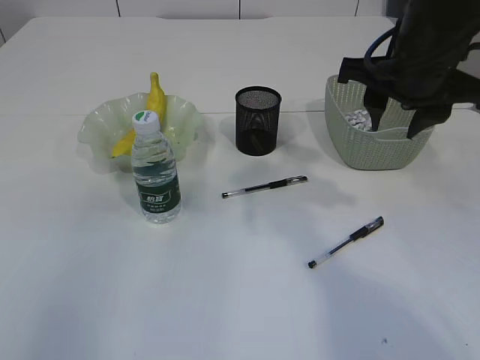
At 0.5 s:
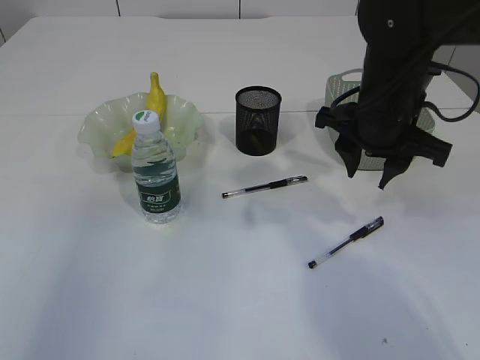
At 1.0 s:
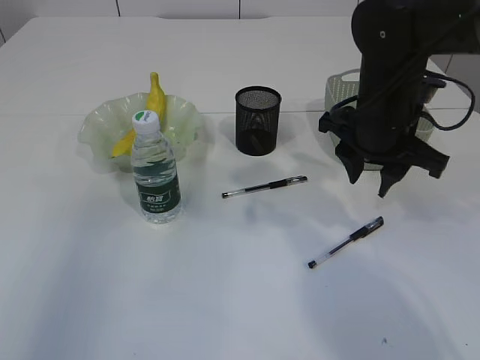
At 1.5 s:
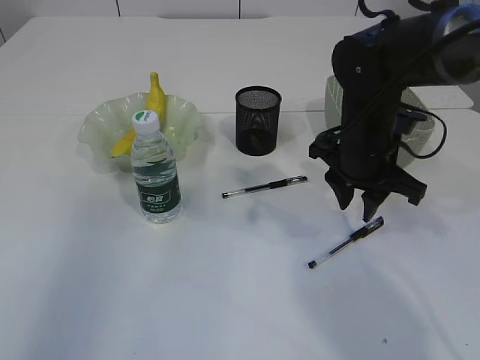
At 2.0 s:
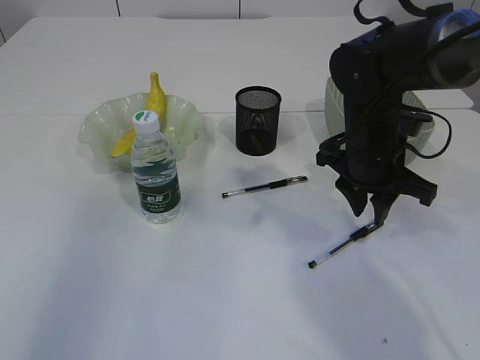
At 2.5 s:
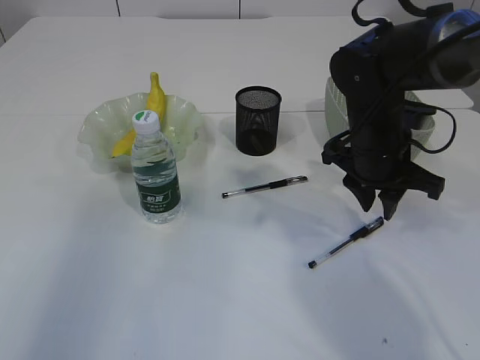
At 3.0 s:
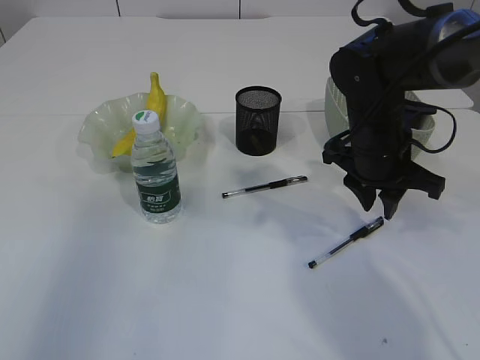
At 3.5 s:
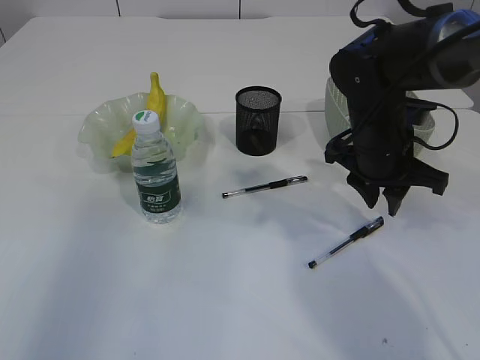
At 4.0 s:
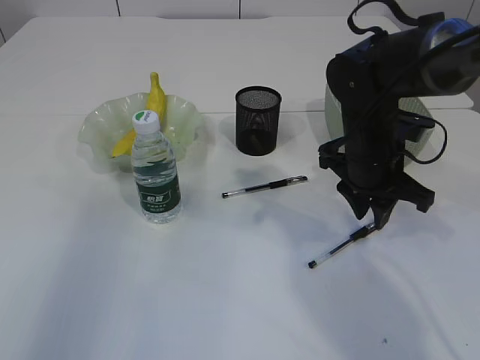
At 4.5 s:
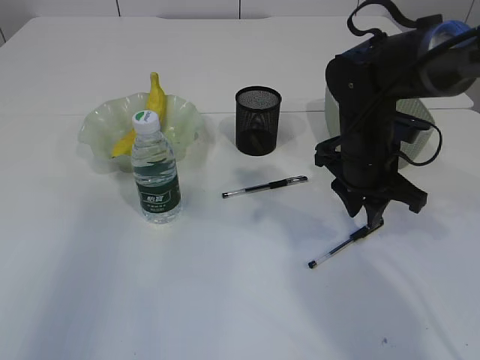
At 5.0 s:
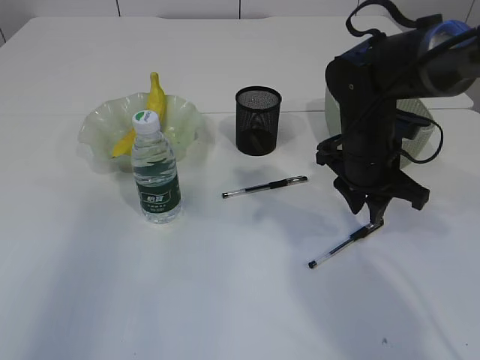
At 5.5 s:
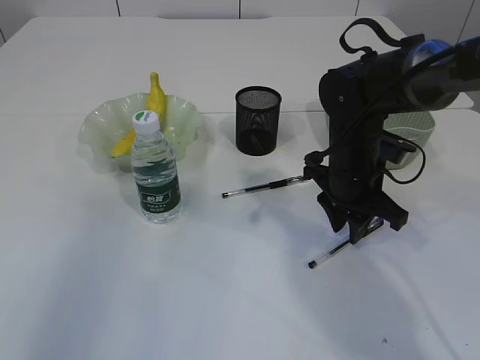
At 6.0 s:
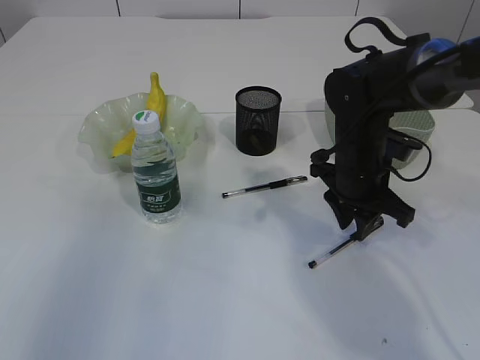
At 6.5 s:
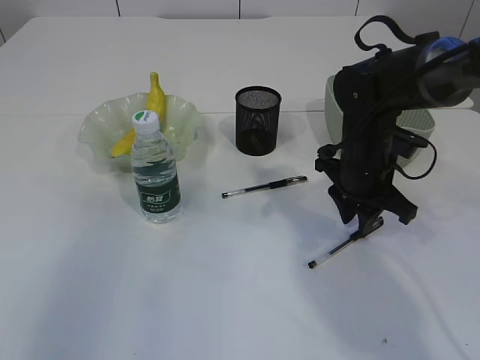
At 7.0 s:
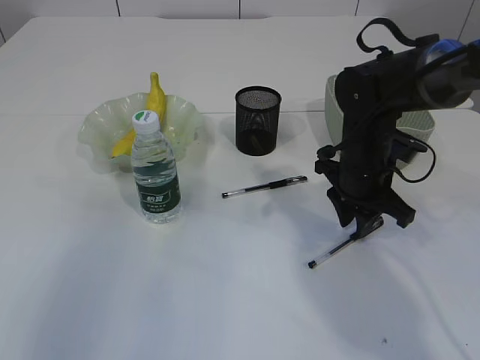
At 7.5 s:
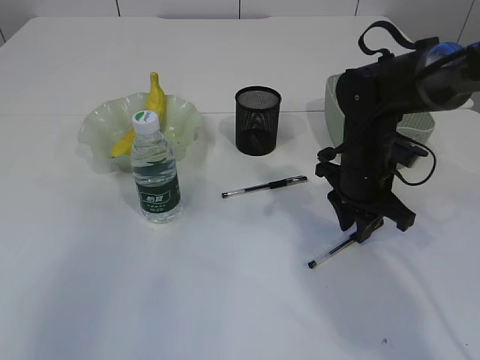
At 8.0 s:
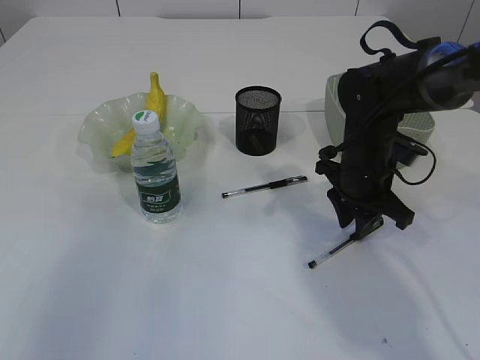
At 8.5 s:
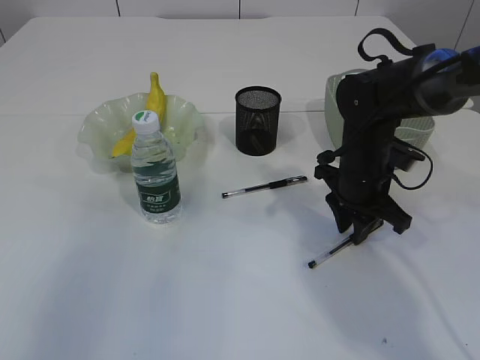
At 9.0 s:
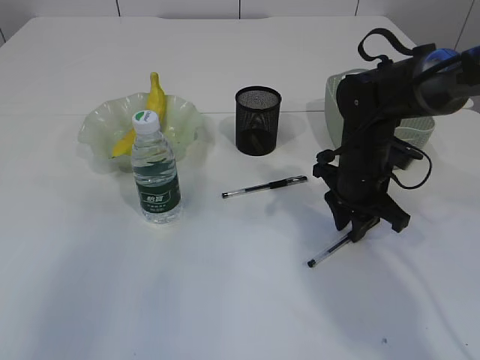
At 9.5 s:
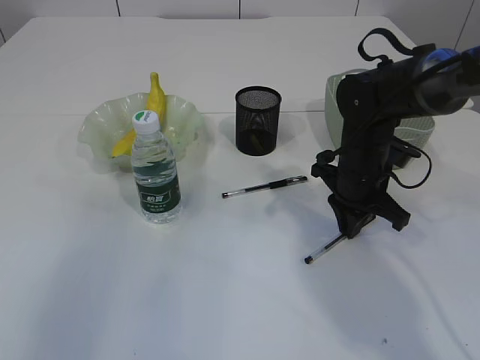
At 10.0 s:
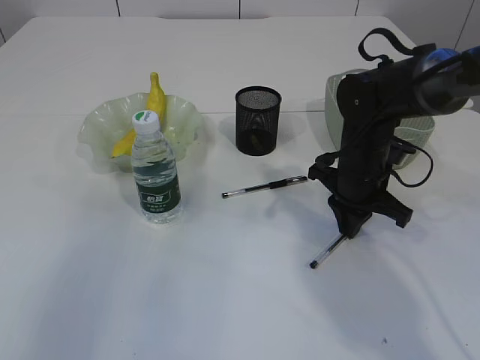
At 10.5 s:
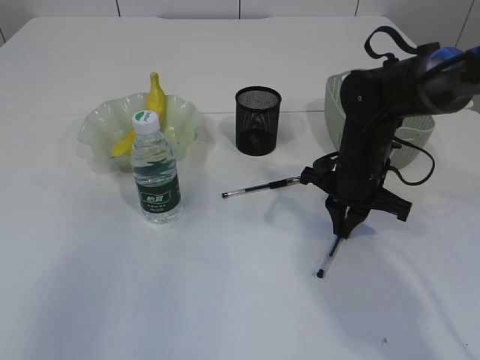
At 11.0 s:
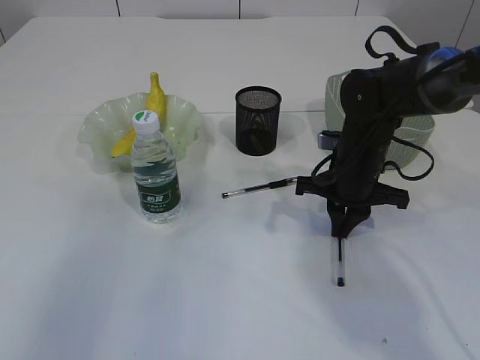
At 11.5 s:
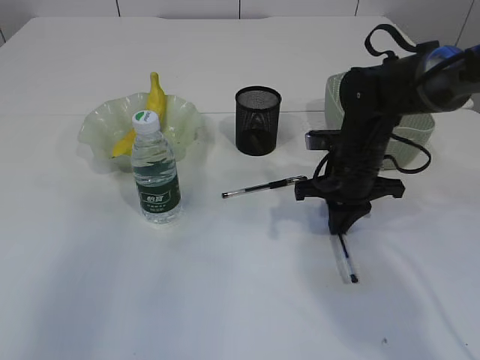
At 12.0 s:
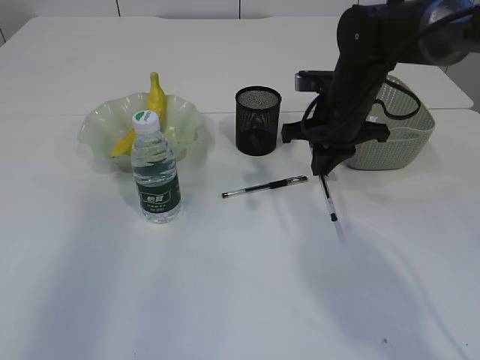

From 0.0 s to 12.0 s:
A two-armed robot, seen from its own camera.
From 0.0 s to 2.0 s: The right gripper moves downward, some 10 cm.
From 2.0 s to 10.0 s: There are only small adjustments of the grippers.
From 10.0 s to 12.0 s: The right gripper moves upward, about 5 cm.

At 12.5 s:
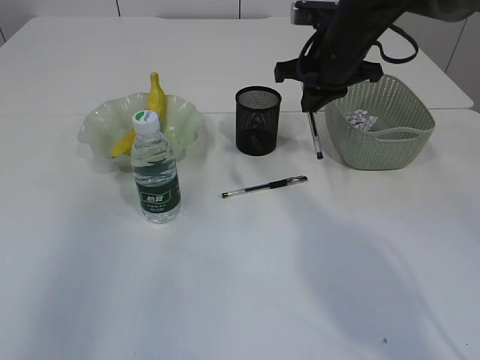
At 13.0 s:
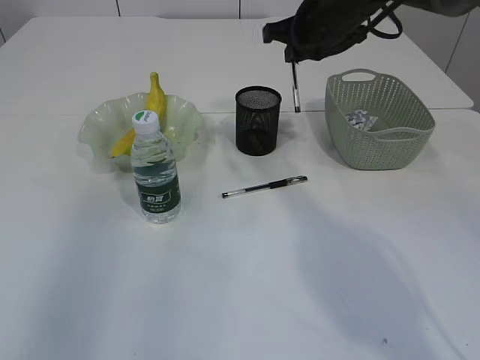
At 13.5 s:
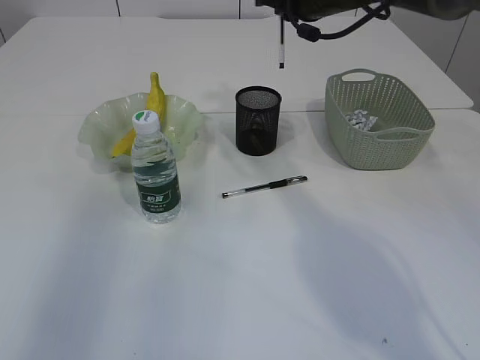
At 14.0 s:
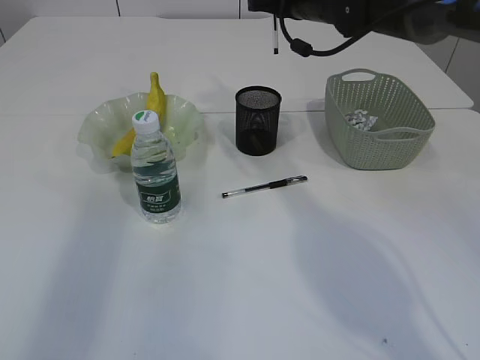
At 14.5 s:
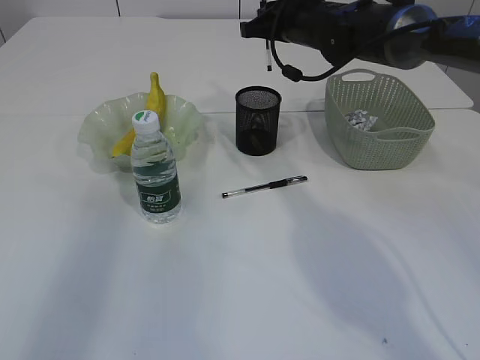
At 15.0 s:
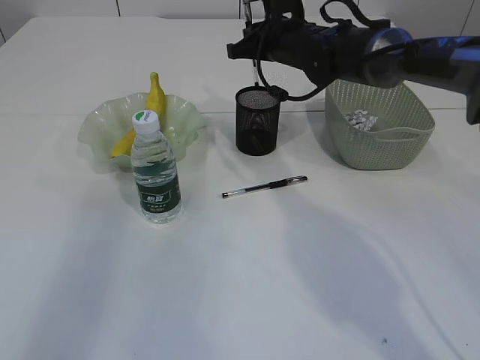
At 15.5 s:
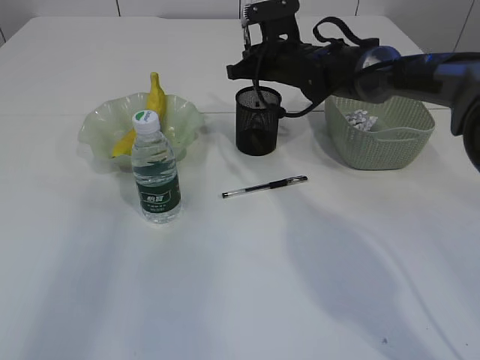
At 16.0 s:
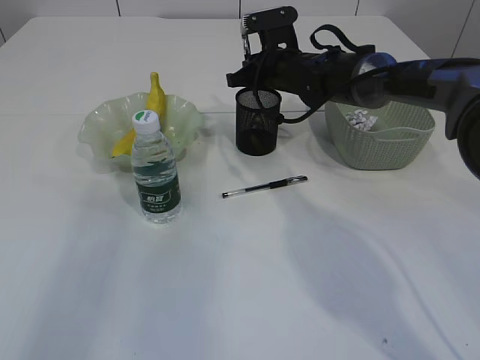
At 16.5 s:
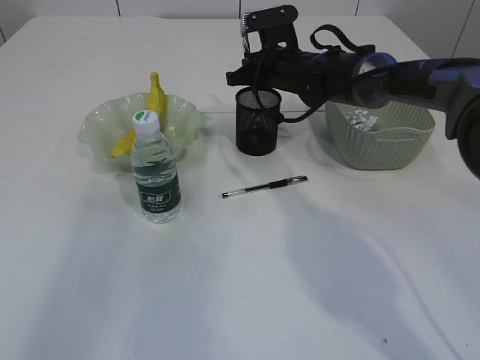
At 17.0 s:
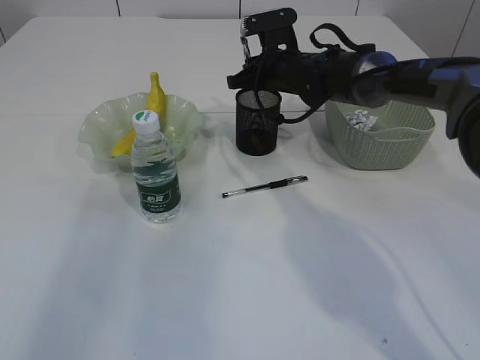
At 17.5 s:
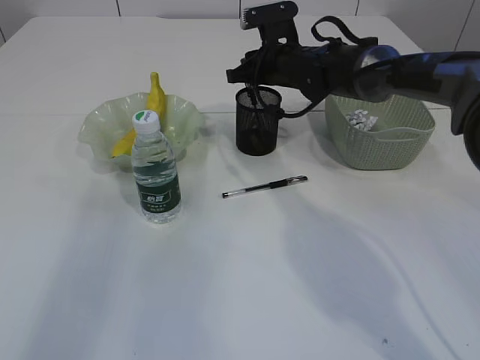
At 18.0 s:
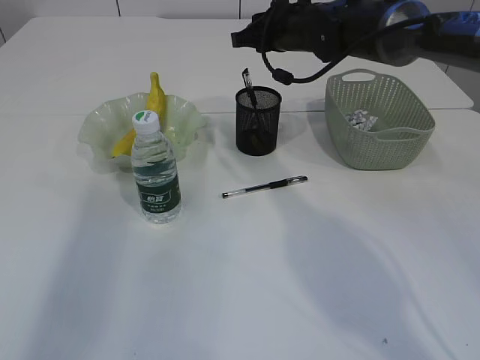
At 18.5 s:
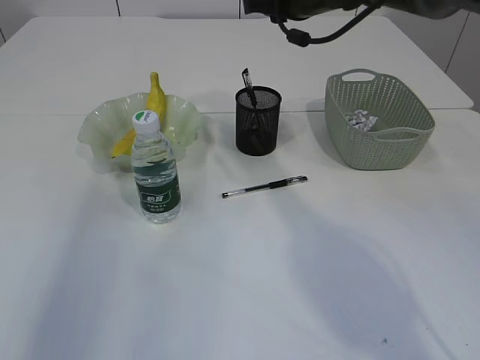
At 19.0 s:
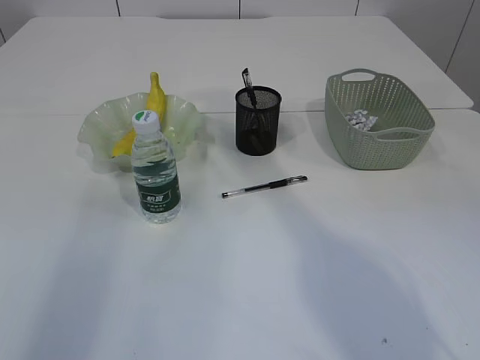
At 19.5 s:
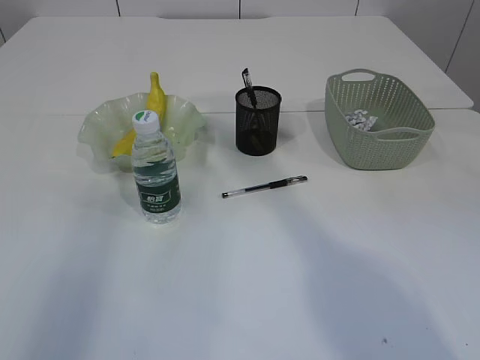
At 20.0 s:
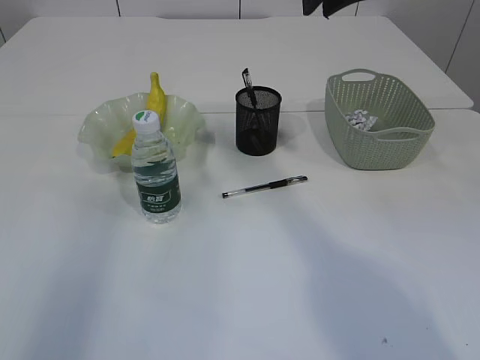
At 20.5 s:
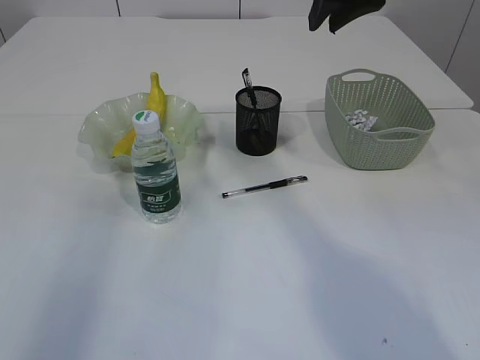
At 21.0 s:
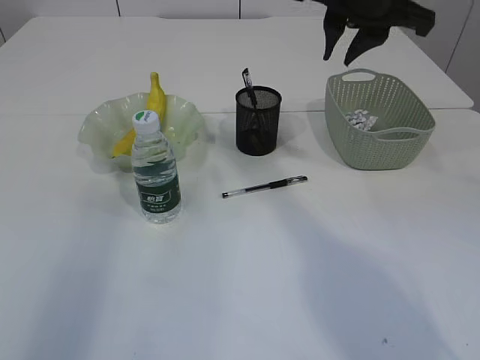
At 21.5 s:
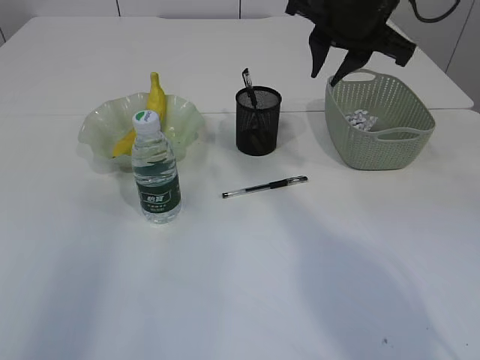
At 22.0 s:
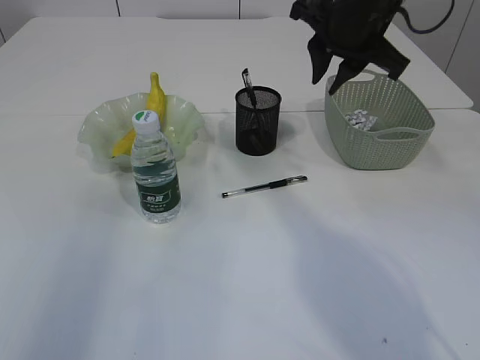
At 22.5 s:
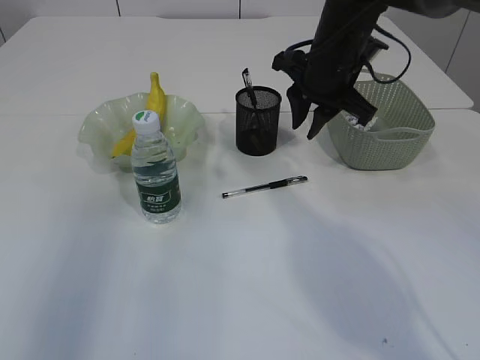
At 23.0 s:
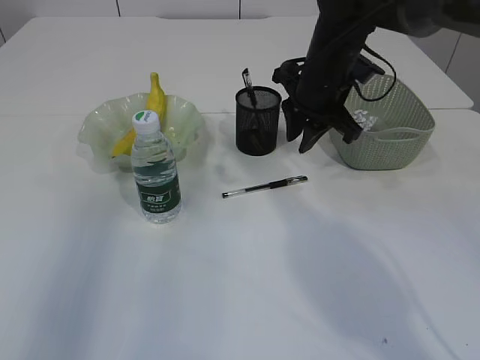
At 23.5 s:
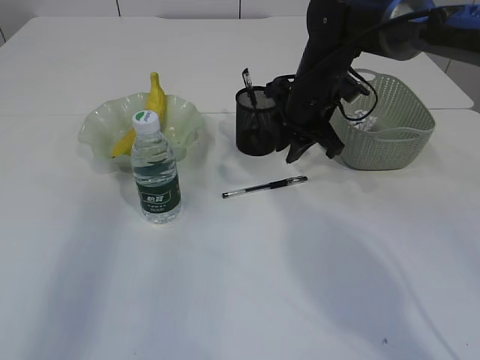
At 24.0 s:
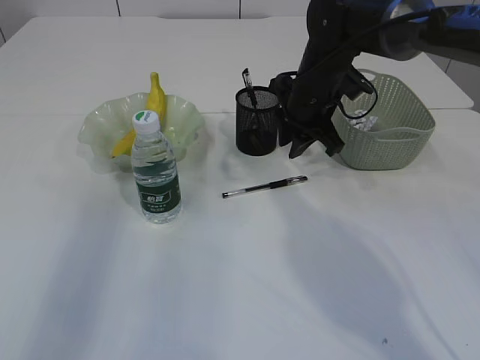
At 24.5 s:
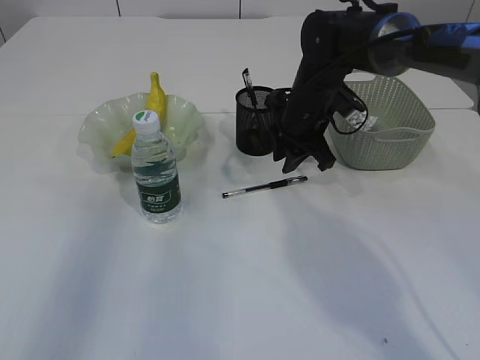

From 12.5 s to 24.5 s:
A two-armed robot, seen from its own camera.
Step, from 12.5 s to 18.0 s: Place the pen into the pen holder.
From 12.5 s to 14.5 s: The right gripper goes approximately 5 cm forward.
From 14.5 s to 16.5 s: The right gripper is displaced downward by some 5 cm.
From 16.5 s to 18.5 s: The right gripper moves upward, approximately 10 cm.
From 18.5 s to 20.5 s: The right gripper travels backward and upward by about 15 cm.
From 20.5 s to 22.5 s: The right gripper goes some 15 cm downward.
From 22.5 s to 24.5 s: The right gripper shifts some 10 cm downward.

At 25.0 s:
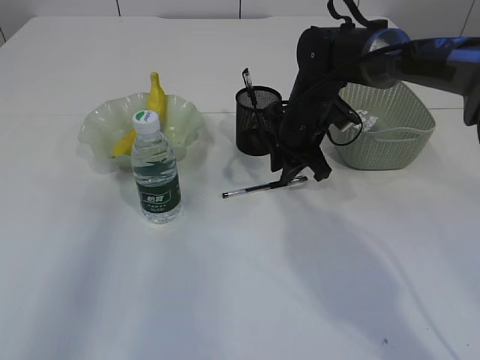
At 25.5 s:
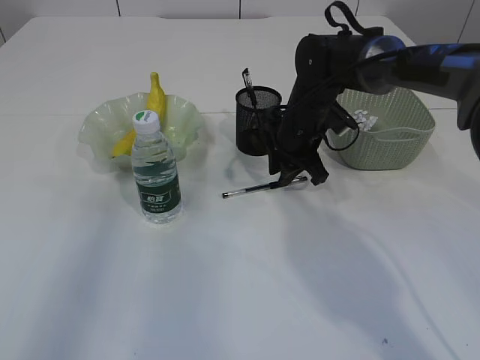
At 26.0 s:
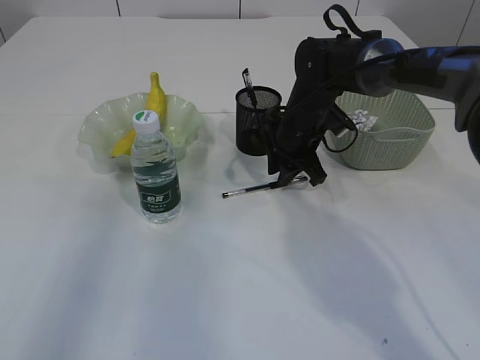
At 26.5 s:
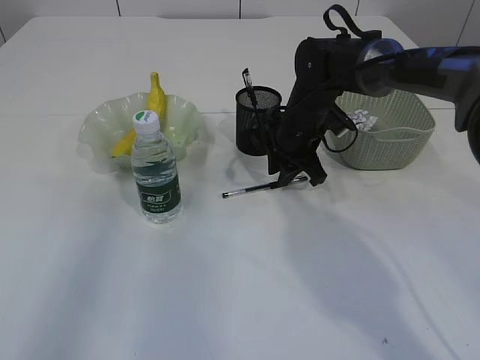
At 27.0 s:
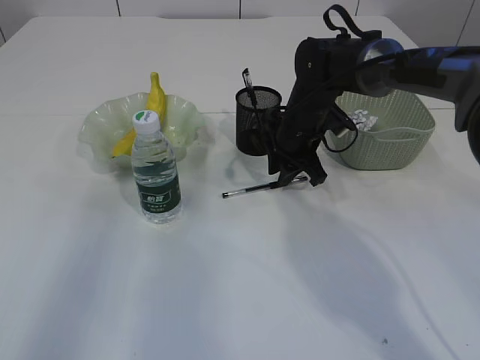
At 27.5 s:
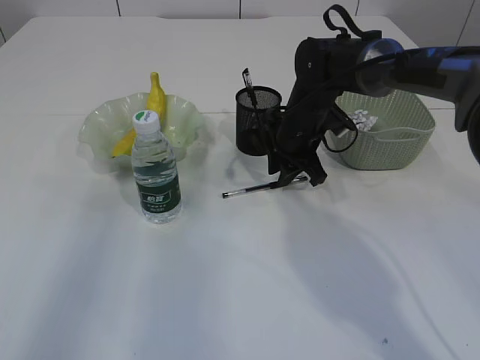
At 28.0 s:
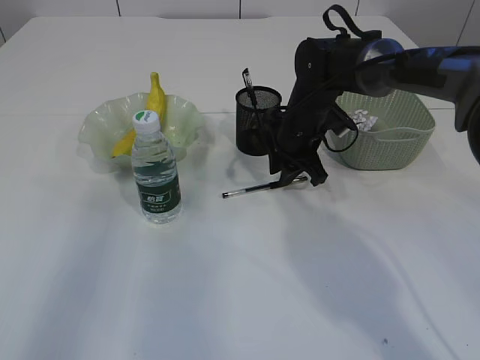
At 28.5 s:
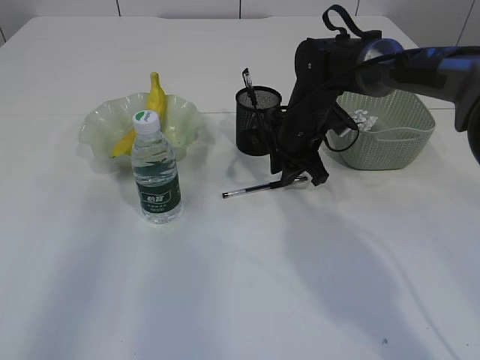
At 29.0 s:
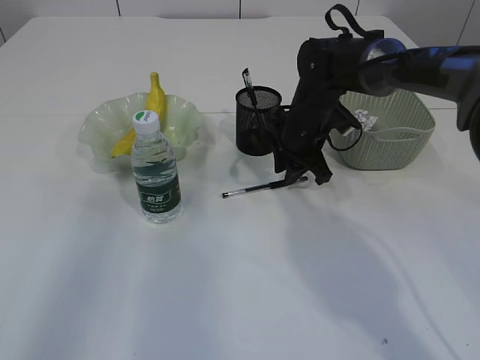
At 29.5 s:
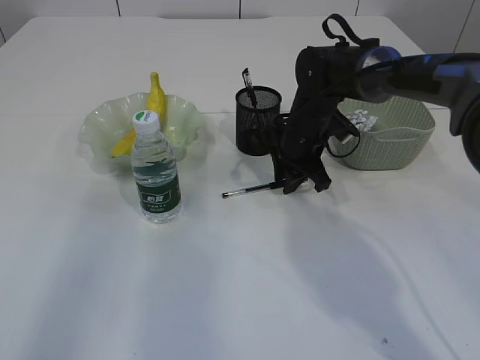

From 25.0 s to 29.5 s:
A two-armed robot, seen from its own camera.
From 25.0 s to 27.0 s: The two grippers keep their place.
From 27.0 s to 29.5 s: Both grippers stay about where they are.
